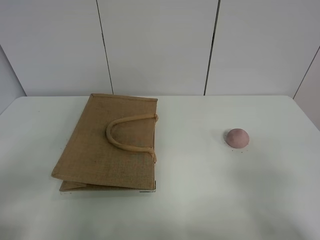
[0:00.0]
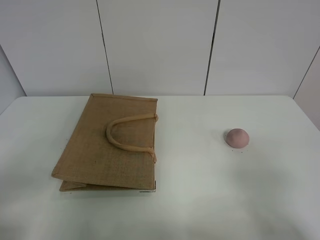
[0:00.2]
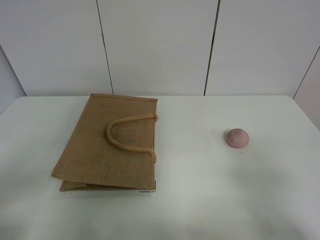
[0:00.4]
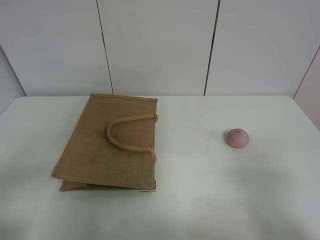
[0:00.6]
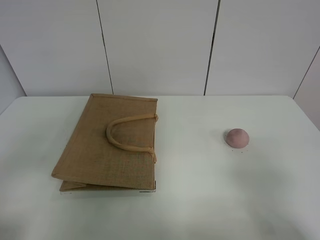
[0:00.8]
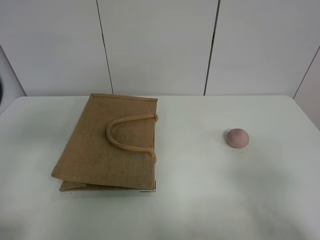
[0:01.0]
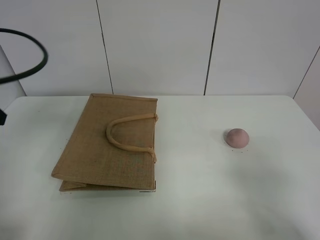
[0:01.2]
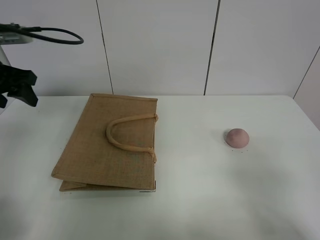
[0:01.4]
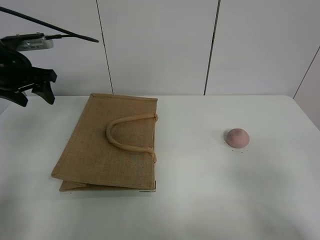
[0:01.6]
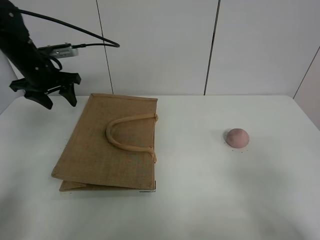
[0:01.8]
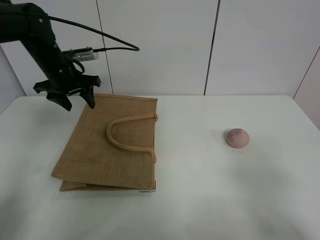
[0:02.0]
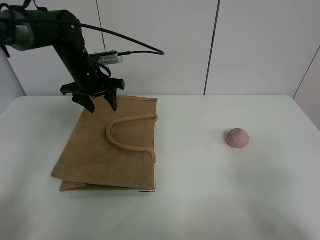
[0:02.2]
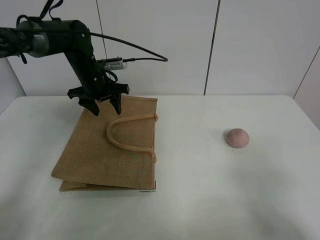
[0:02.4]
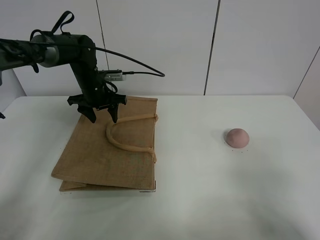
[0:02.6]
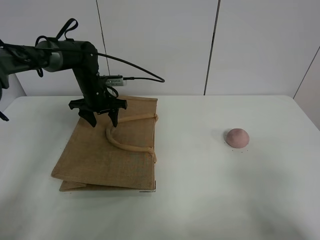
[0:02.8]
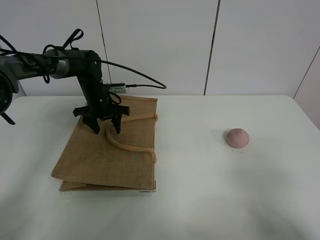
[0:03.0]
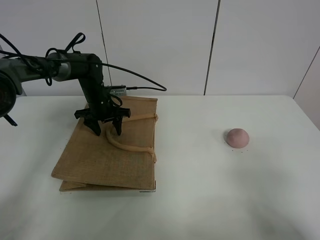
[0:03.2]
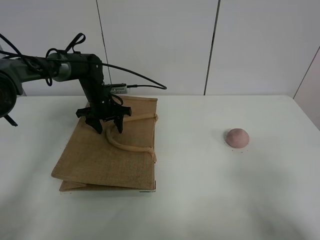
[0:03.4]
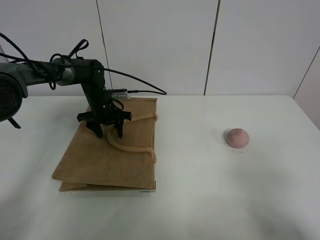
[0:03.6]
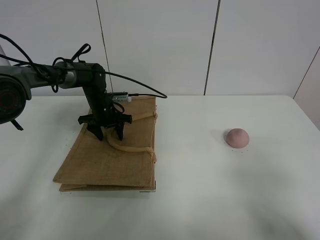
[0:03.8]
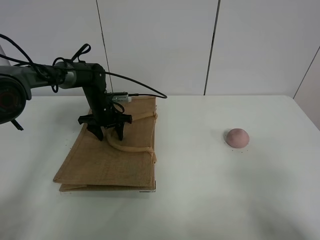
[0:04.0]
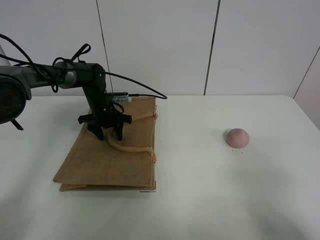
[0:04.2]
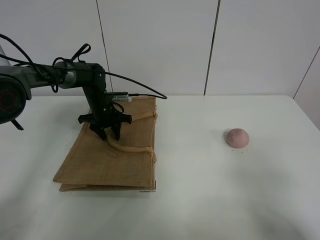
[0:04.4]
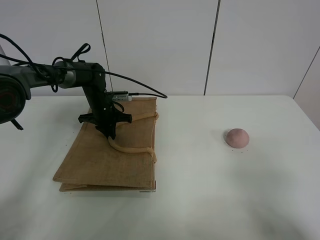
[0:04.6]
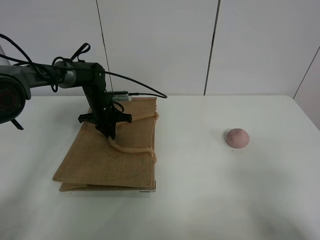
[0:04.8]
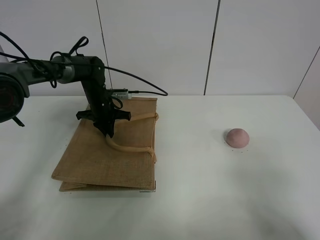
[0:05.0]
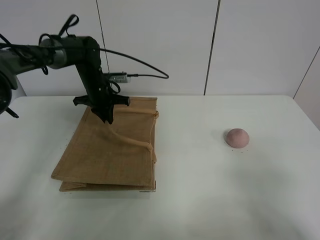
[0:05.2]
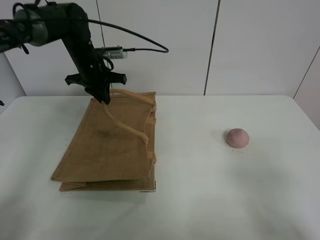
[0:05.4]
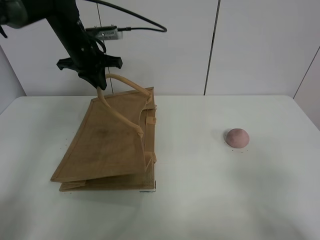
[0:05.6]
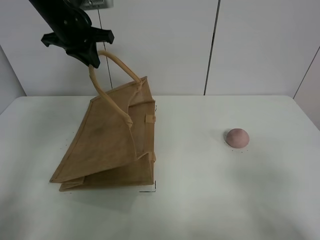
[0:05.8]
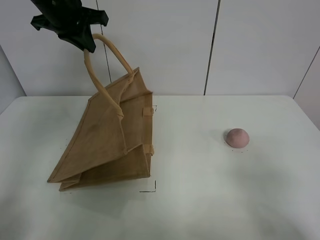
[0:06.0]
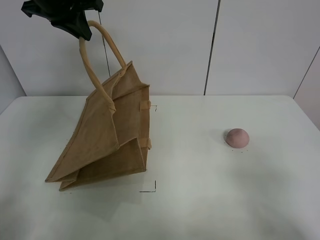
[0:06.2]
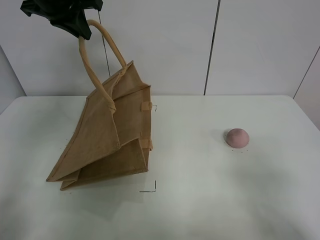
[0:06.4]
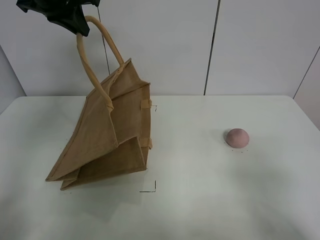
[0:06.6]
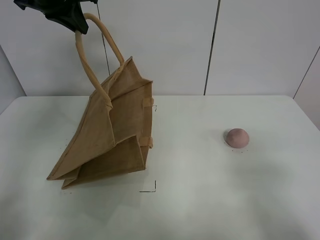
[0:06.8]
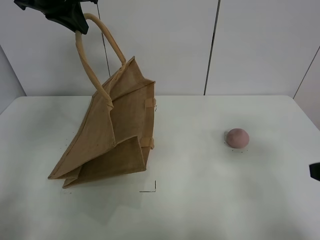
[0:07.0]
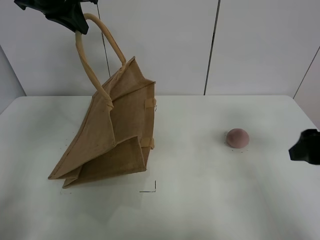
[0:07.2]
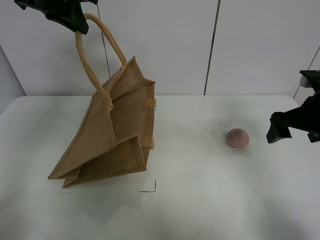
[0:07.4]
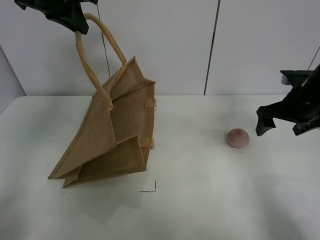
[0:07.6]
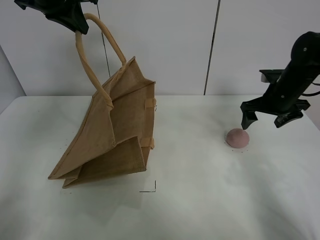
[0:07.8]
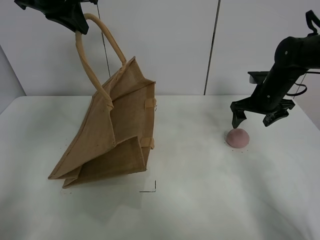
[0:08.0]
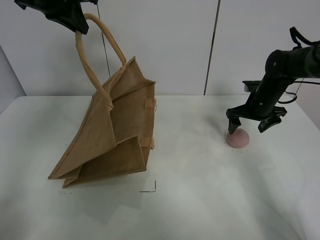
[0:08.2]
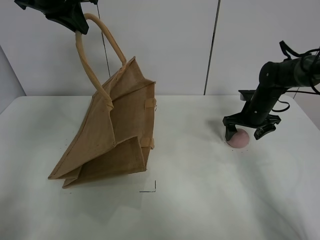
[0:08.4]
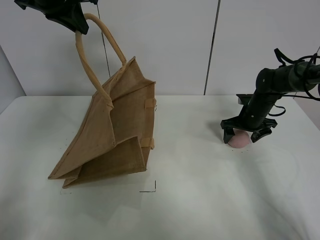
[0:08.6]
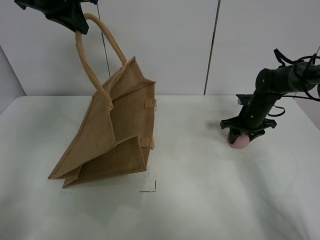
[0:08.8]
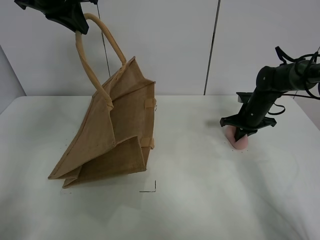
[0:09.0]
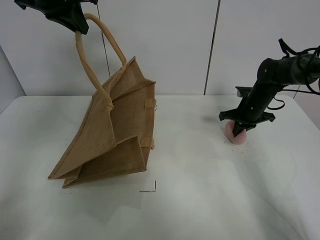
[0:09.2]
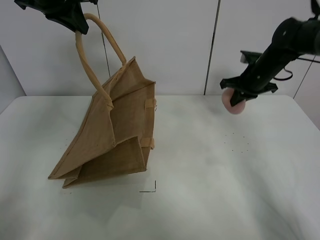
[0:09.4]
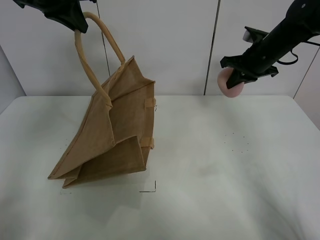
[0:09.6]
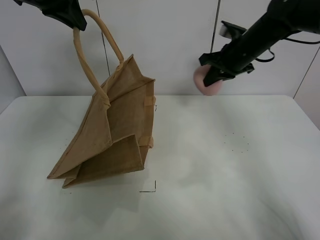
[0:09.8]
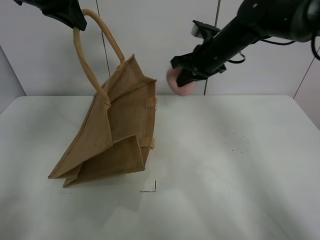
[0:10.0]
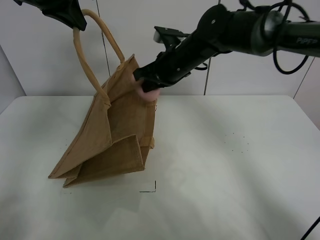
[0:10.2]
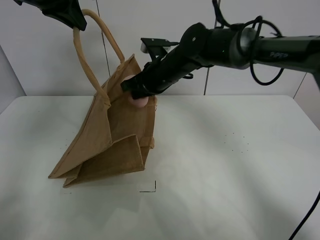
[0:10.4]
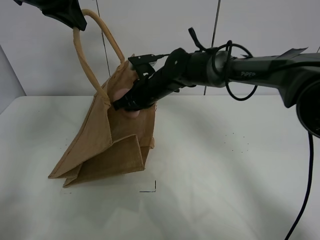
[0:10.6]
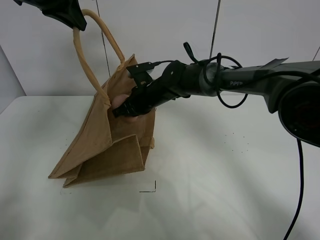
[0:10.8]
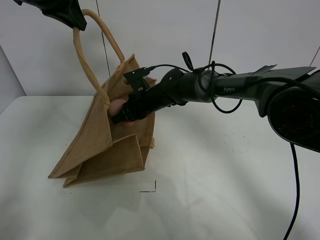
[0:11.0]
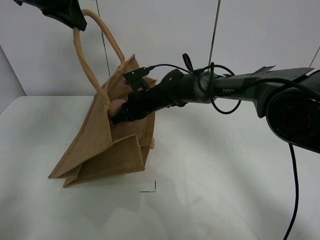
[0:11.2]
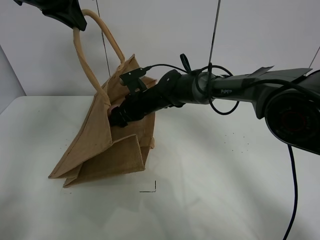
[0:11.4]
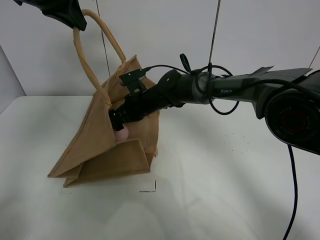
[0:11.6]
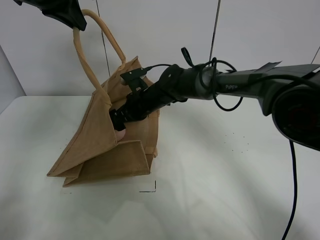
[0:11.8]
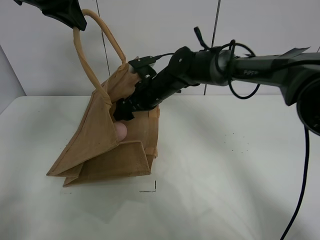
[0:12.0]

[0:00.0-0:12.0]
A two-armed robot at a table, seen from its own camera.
Task of the whole recording: open the brown linen bag and put the peach in the bag.
Step, 0:00.0 to 0:06.2: Lift the handbag with left gripper.
Step, 0:06.4 to 0:08.8: Grasp the peach with right gripper.
0:00.0 to 0:01.6: The left gripper goes roughly 35 cm forward.
0:01.6 to 0:03.0: The left gripper travels downward, to the right and forward by some 20 cm.
0:03.0 to 0:04.4: The grippers stay close to where they were, moving slightly.
0:04.4 to 0:06.0: The left gripper shifts roughly 30 cm upward, and closes its fingers.
0:06.0 to 0:07.6: The right gripper goes some 30 cm forward.
0:07.6 to 0:09.0: The right gripper shifts approximately 15 cm downward and forward, and closes.
0:09.0 to 0:10.4: The right gripper travels to the left and upward by approximately 30 cm.
0:10.4 to 0:12.0: The right gripper opens.

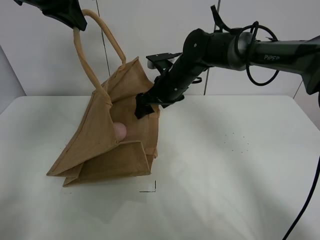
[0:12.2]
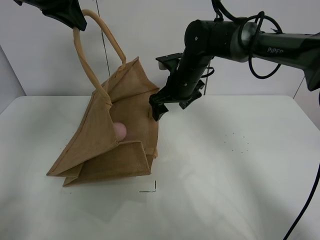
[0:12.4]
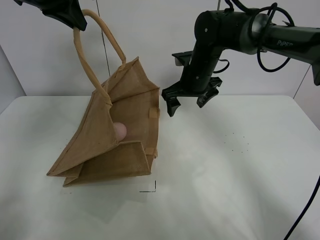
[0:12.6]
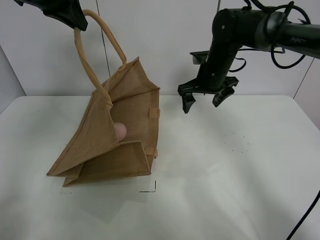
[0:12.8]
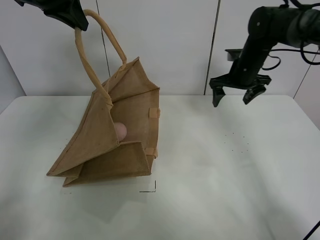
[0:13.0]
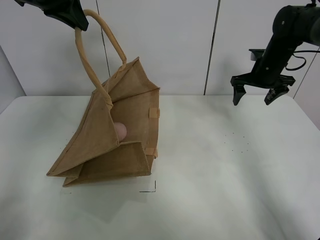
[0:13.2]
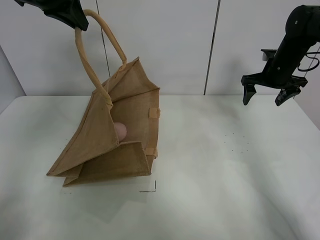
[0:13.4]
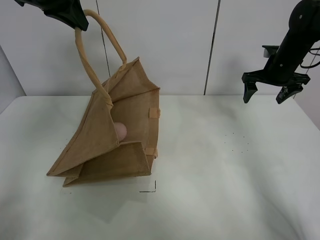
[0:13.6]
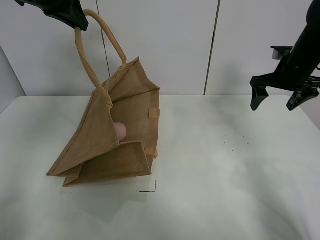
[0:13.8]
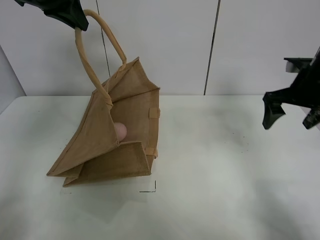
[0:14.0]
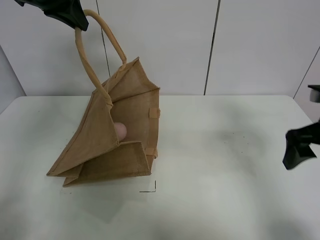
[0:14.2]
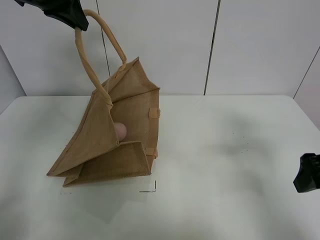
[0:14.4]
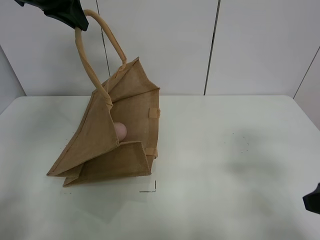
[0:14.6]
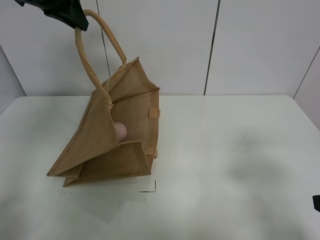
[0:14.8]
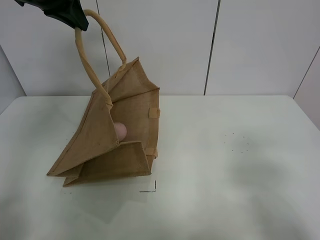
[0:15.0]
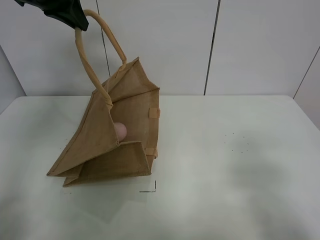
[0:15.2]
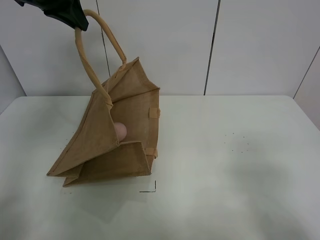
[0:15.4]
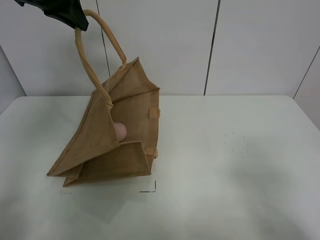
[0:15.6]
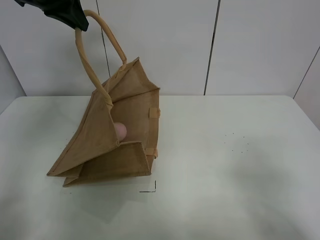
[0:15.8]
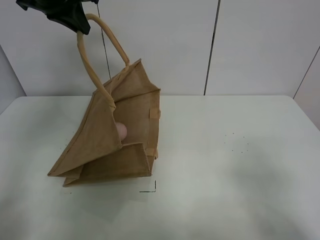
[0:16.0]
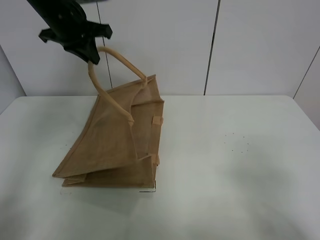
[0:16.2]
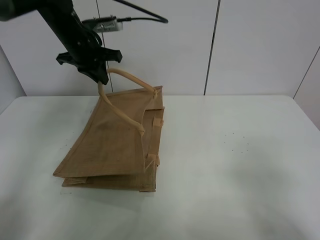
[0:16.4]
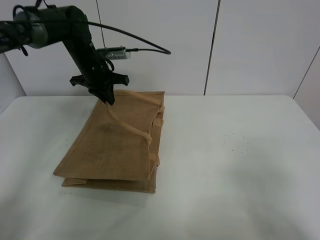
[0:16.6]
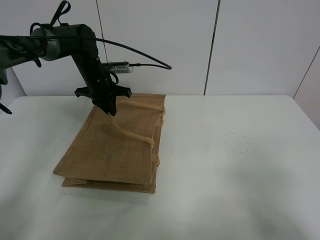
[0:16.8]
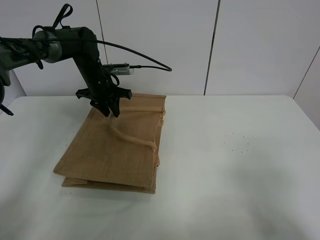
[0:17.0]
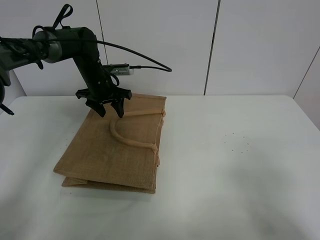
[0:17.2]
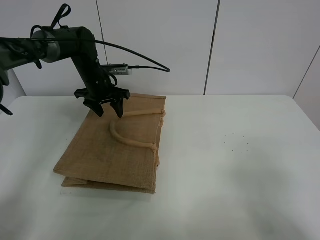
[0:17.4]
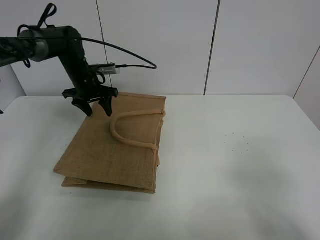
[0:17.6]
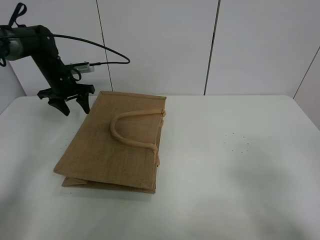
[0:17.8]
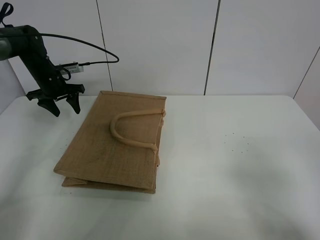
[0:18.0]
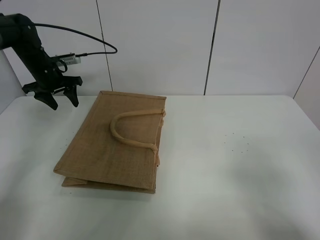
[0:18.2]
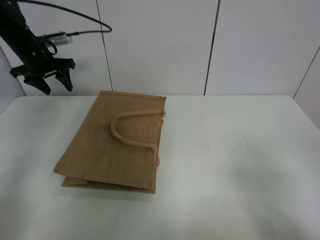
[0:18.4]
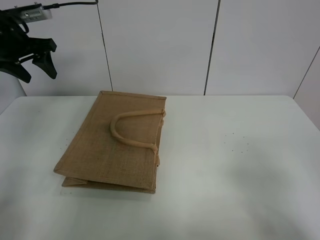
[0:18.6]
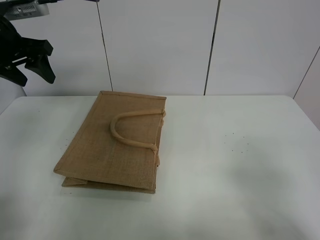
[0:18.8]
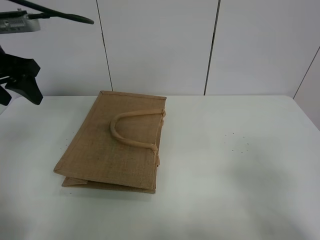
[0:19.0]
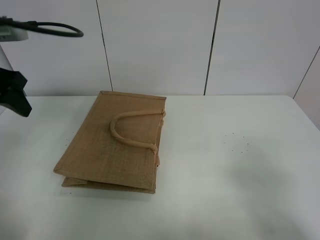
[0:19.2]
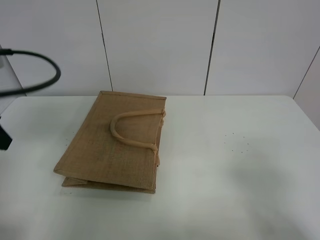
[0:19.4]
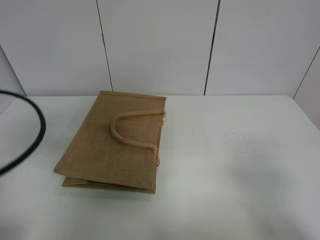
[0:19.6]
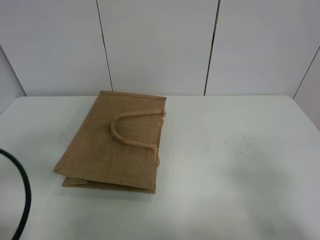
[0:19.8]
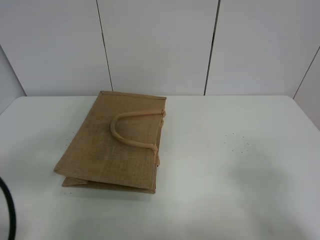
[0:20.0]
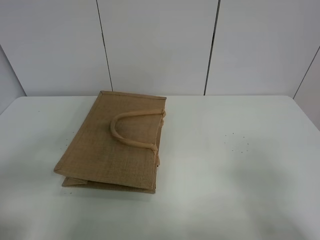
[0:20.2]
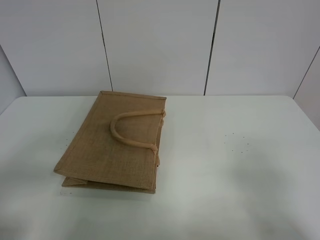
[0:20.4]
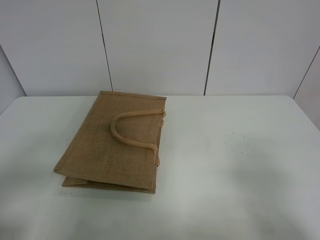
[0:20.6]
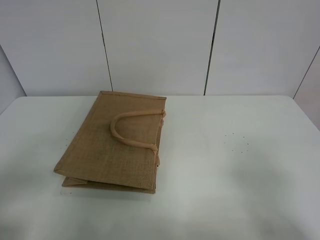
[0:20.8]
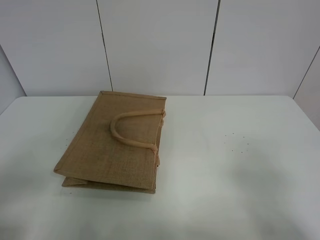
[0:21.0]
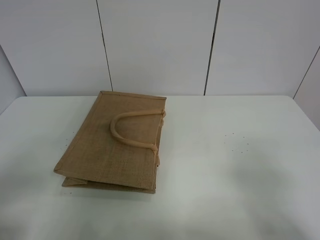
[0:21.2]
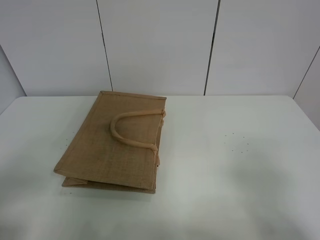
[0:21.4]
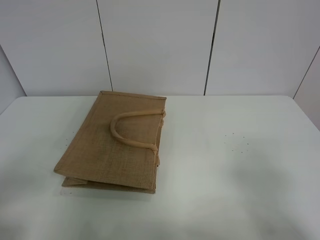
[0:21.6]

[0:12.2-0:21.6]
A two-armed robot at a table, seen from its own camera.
Task of the whole recording: open the brown linen bag and put the peach in the bag.
Step, 0:12.6 to 0:17.8: Put down the handbag with left grippe.
0:12.2 to 0:13.8: The right gripper shifts some 25 cm to the right.
0:13.8 to 0:15.4: The right gripper travels backward by about 35 cm.
0:15.4 to 0:17.0: The left gripper moves downward, approximately 25 cm, and opens up.
0:17.0 to 0:18.4: The left gripper goes roughly 15 cm to the left and upward, and opens its fingers.
0:18.4 to 0:20.0: The left gripper moves backward, some 40 cm.

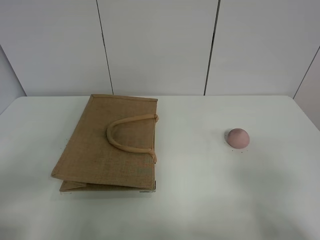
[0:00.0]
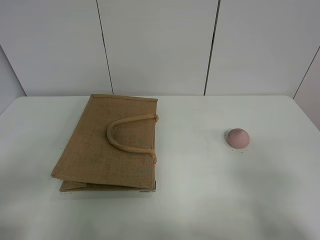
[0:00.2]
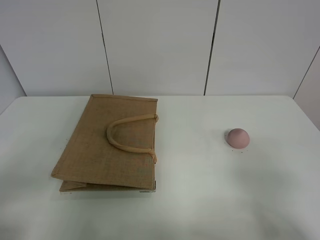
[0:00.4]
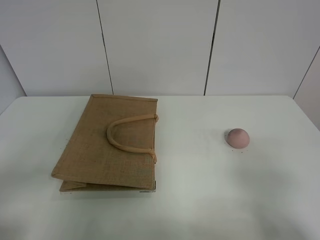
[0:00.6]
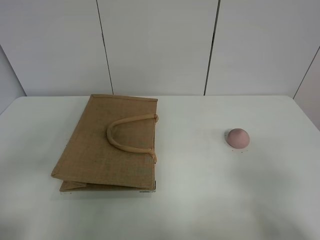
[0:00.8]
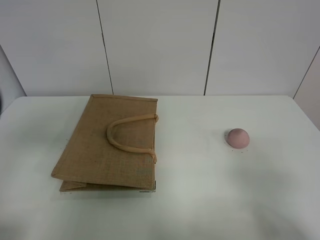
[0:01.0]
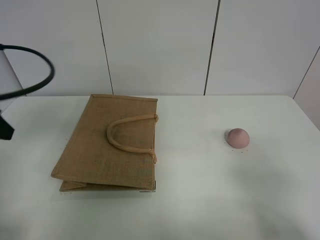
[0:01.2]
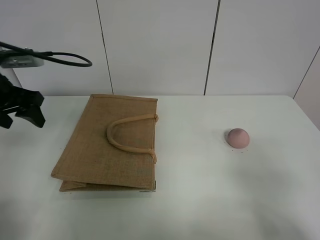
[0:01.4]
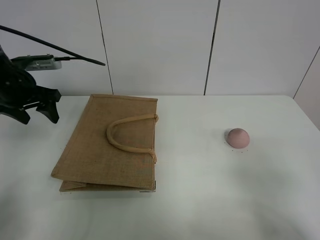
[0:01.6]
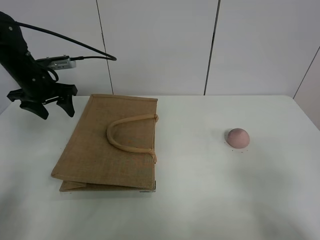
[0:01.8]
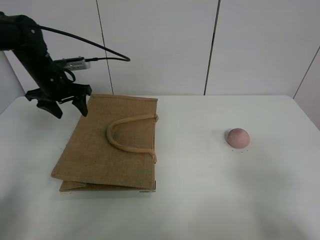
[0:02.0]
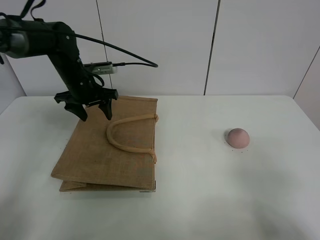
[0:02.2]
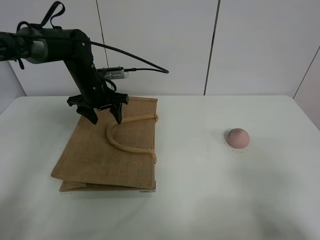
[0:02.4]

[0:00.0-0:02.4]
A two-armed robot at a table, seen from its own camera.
Task of the whole recording: open the brown linen bag and put the peach in the bag.
0:00.0 to 0:01.2: The left gripper travels forward by some 20 cm.
0:01.2 to 0:02.4: The left gripper shifts some 30 cm forward, to the right and downward.
